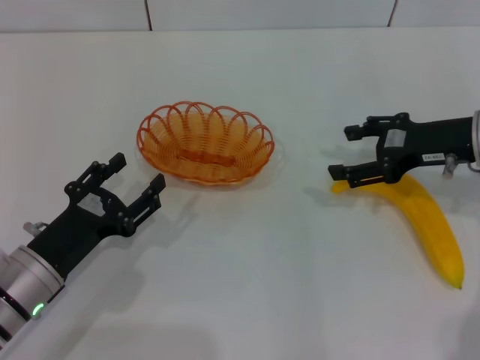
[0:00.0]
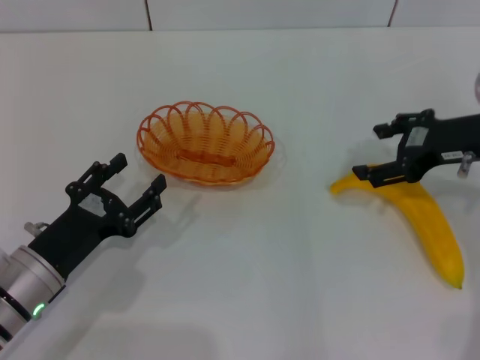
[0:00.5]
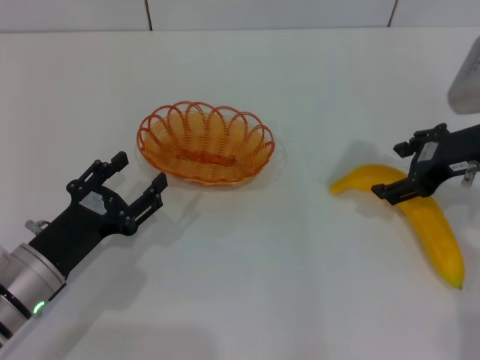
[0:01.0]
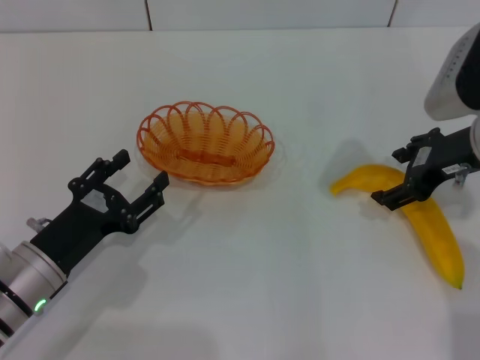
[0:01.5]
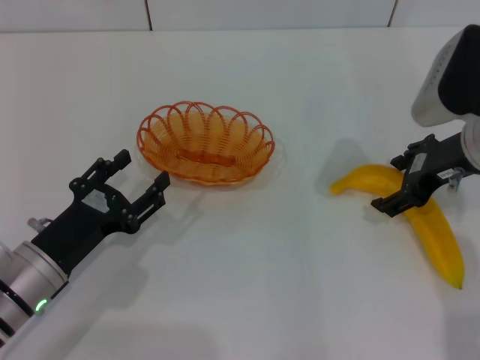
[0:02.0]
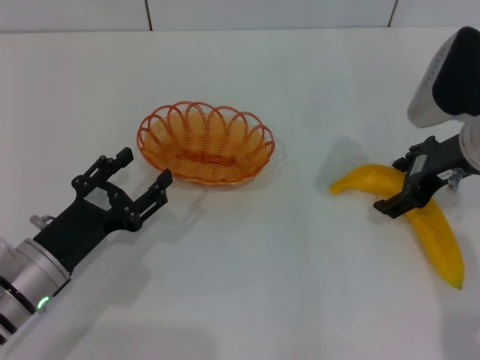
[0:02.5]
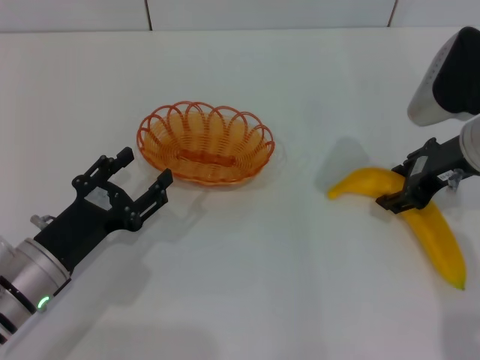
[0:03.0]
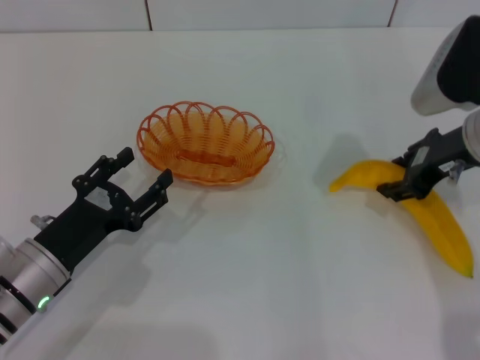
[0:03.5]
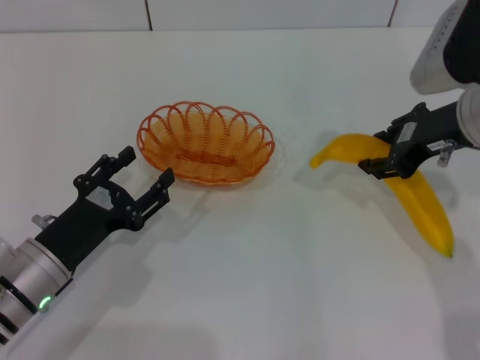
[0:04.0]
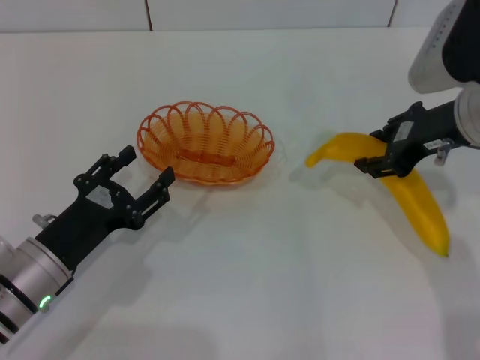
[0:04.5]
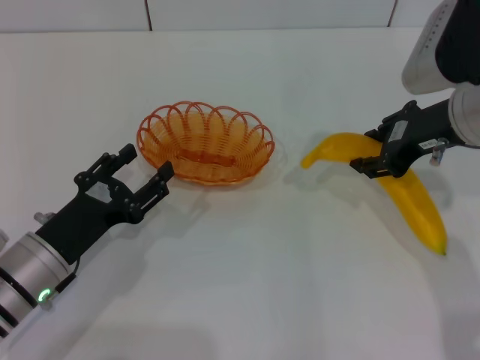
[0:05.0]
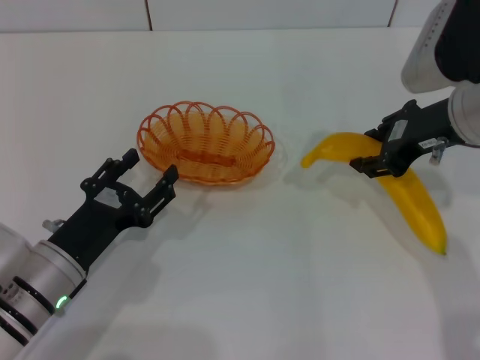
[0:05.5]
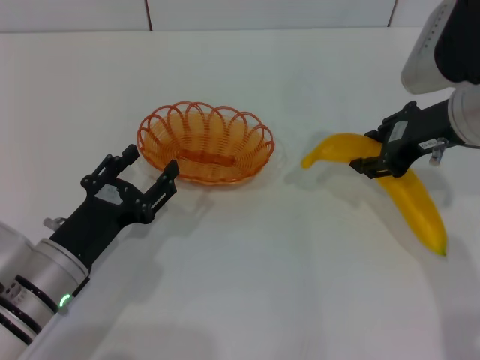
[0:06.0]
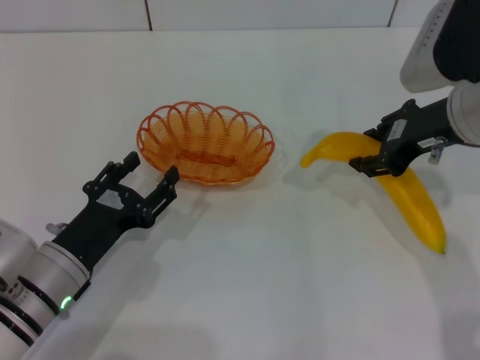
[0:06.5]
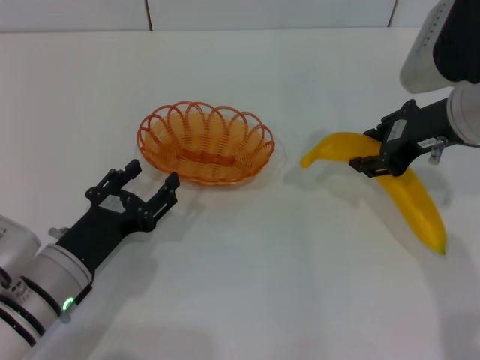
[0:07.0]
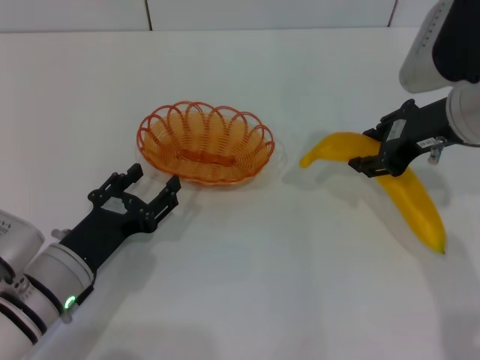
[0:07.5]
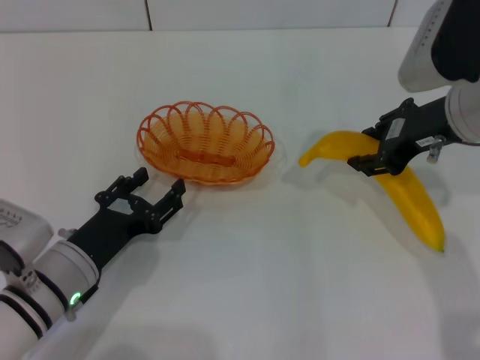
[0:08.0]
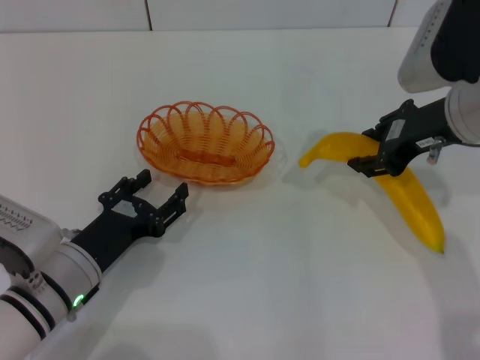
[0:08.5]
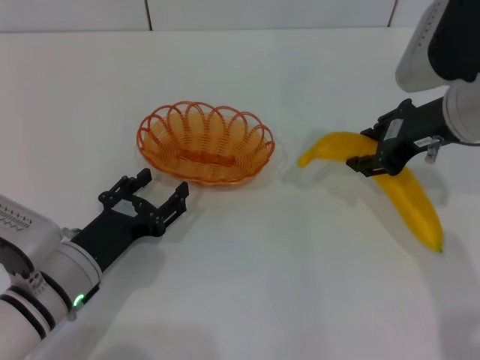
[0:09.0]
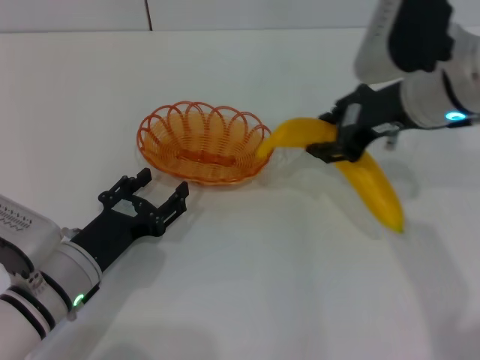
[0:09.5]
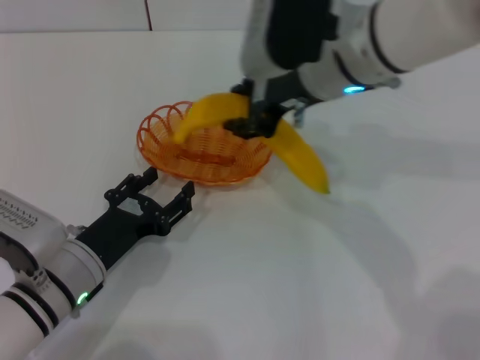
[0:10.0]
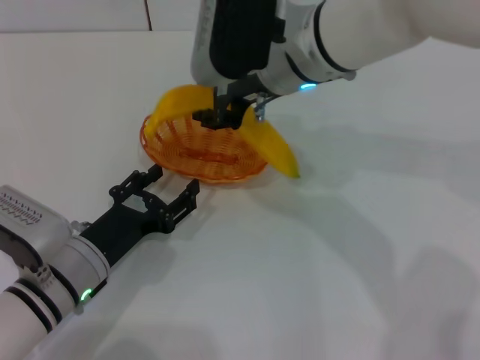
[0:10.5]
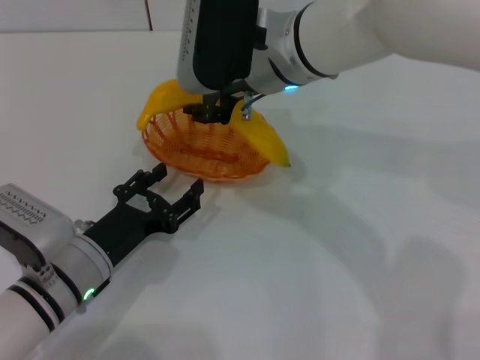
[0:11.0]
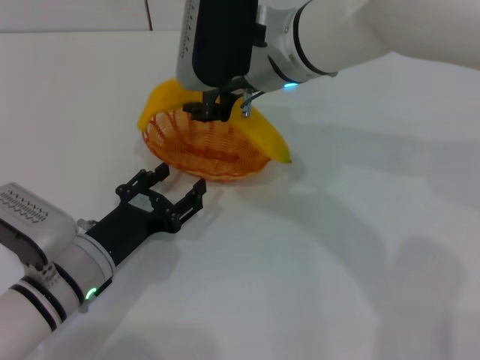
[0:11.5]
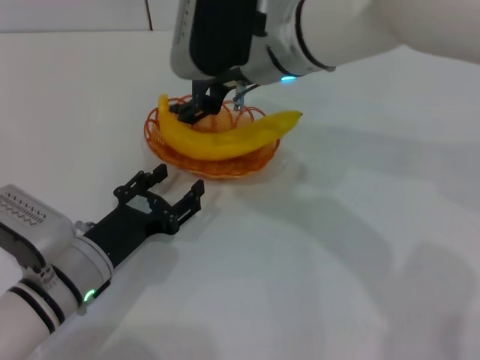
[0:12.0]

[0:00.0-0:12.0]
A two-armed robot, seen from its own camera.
Step, 0:00.0 to 0:03.5: Pick up the banana with the right gripper.
0:02.0 to 0:04.0: The right gripper closes.
0:04.0 to 0:08.0: The grippers stay close to where they were, moving slightly.
0:08.0 to 0:10.0: The right gripper is displaced to the left by approximately 15 cm.
0:10.0 to 0:12.0: The right gripper opens up.

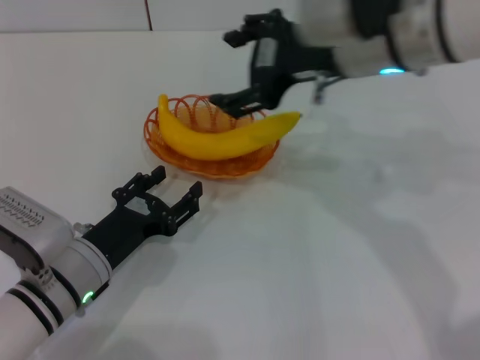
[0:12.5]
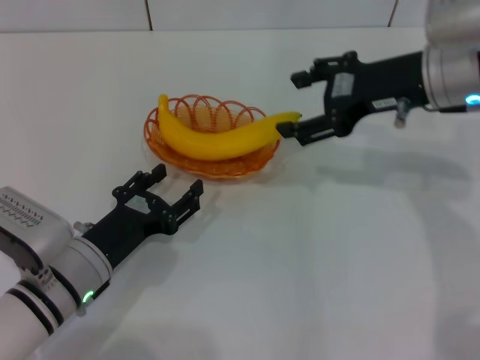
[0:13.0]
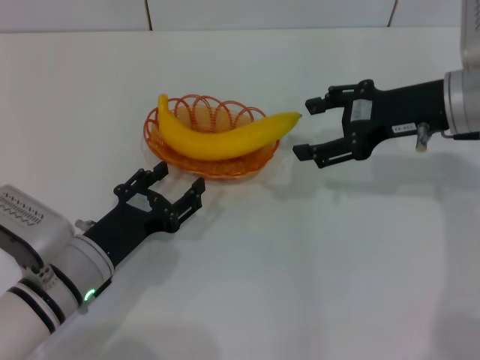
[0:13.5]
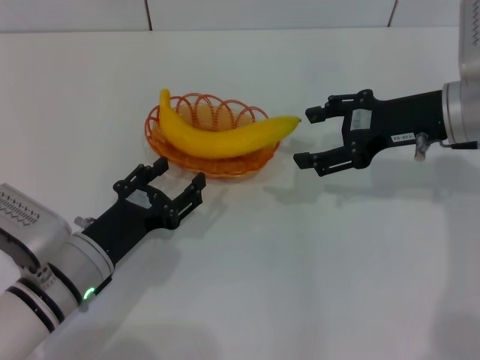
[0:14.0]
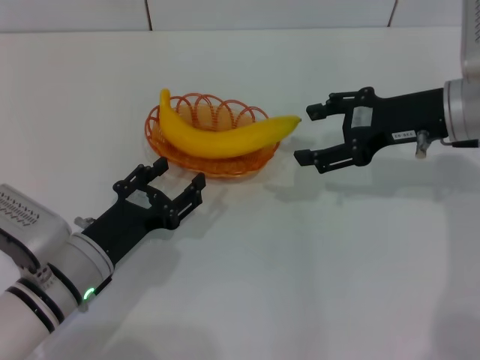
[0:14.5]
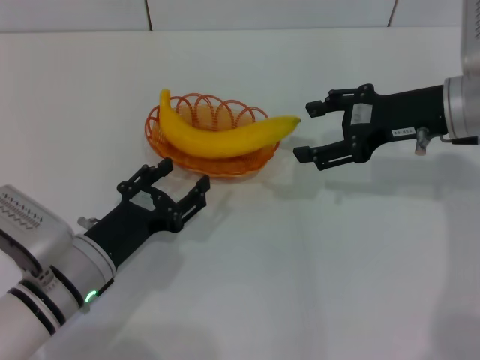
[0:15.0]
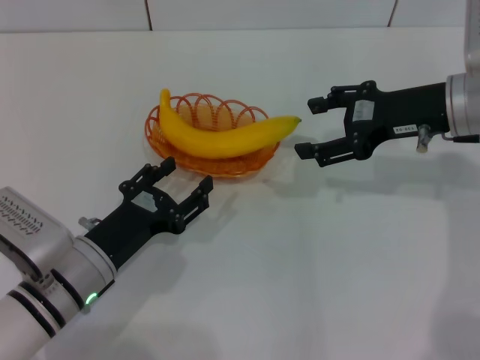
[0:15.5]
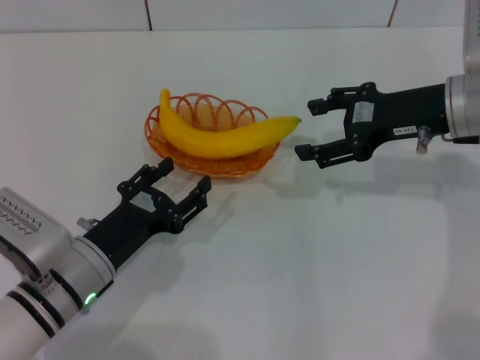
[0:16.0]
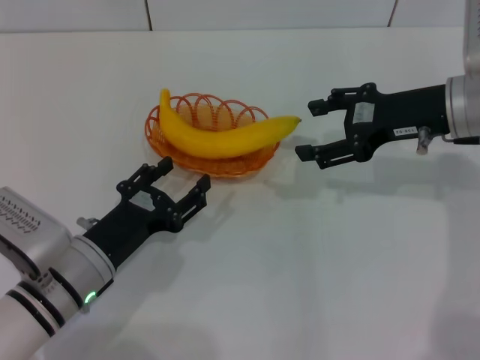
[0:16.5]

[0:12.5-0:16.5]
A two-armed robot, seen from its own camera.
0:12.5 to 0:14.5: The right gripper shifts some 15 cm to the right and downward.
0:14.5 to 0:16.5: Both grippers stay put.
